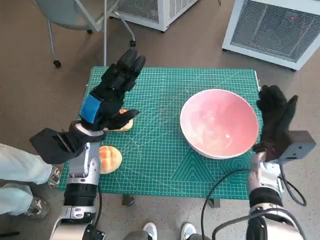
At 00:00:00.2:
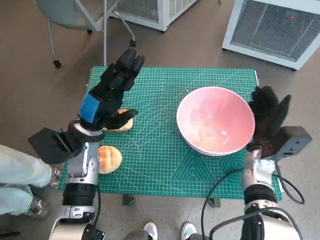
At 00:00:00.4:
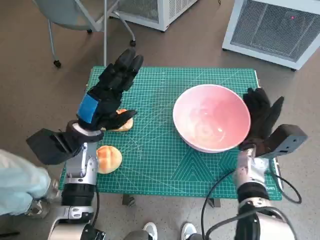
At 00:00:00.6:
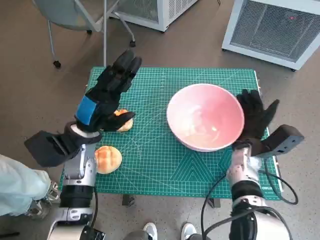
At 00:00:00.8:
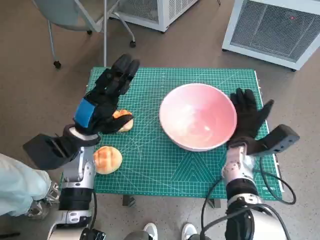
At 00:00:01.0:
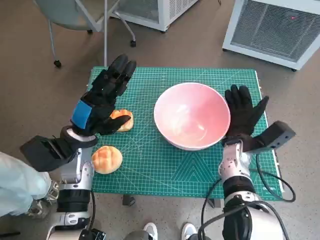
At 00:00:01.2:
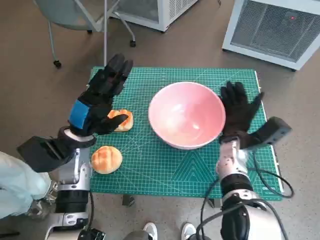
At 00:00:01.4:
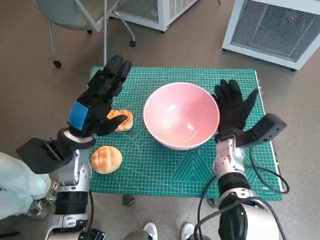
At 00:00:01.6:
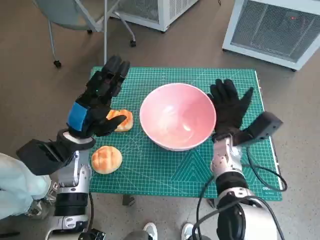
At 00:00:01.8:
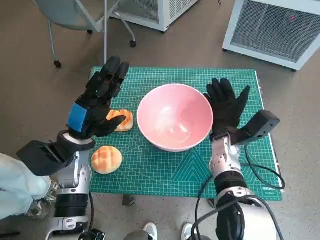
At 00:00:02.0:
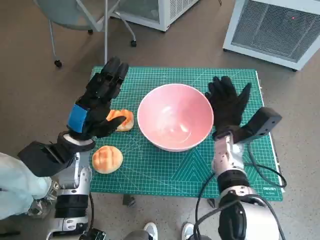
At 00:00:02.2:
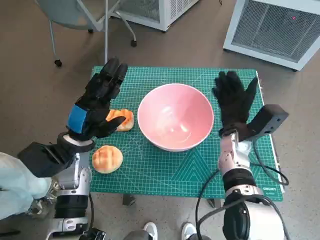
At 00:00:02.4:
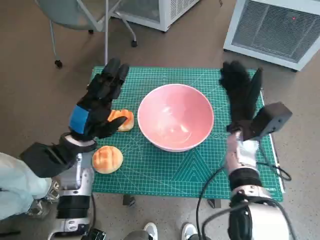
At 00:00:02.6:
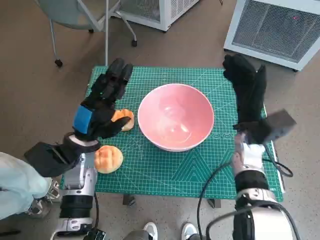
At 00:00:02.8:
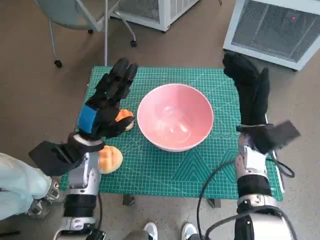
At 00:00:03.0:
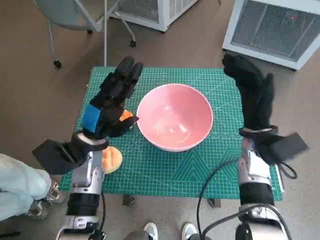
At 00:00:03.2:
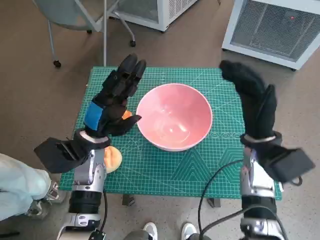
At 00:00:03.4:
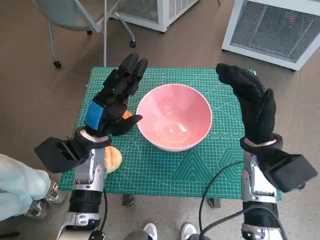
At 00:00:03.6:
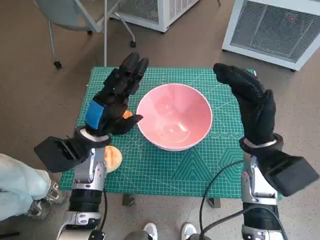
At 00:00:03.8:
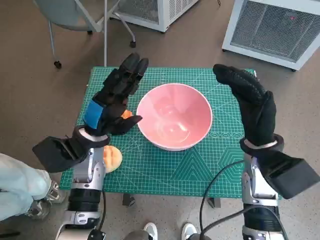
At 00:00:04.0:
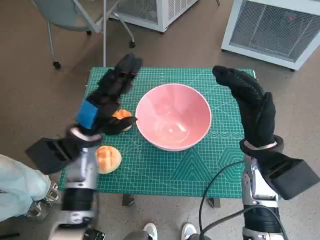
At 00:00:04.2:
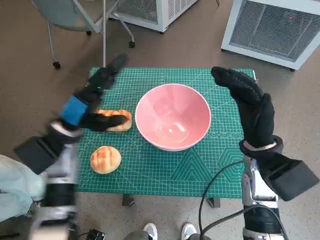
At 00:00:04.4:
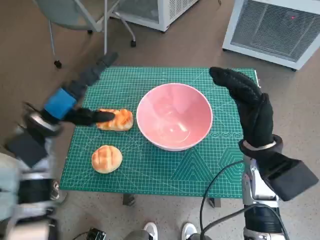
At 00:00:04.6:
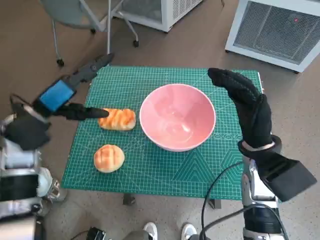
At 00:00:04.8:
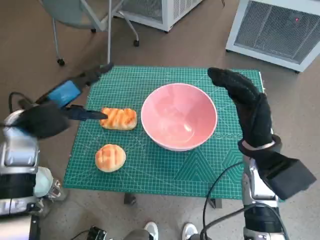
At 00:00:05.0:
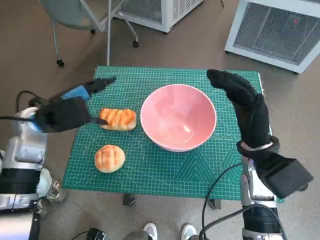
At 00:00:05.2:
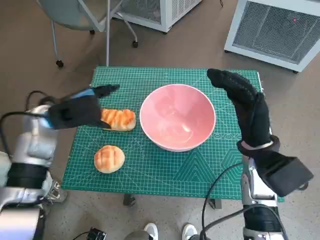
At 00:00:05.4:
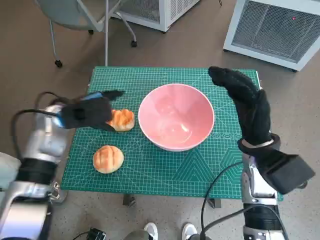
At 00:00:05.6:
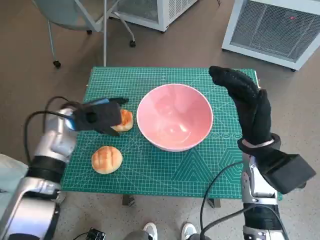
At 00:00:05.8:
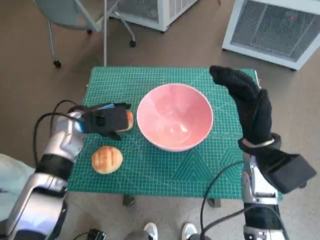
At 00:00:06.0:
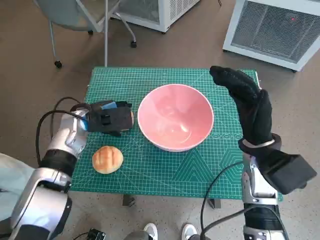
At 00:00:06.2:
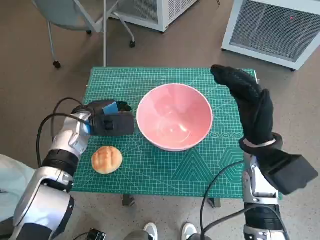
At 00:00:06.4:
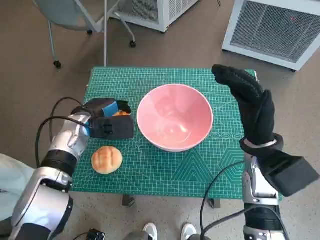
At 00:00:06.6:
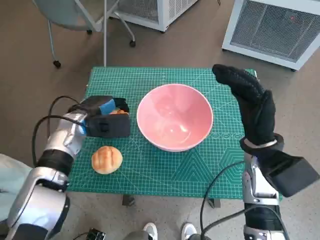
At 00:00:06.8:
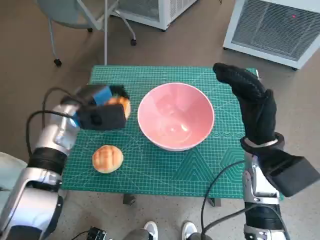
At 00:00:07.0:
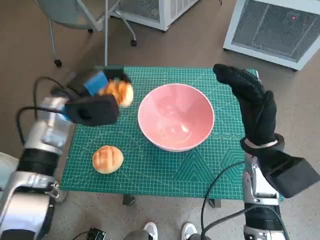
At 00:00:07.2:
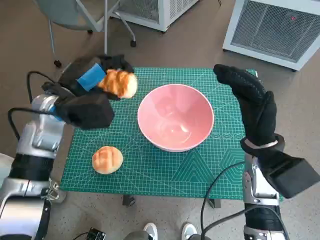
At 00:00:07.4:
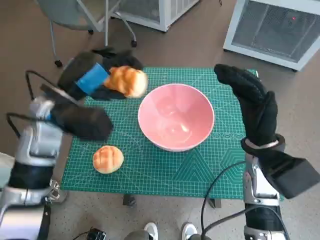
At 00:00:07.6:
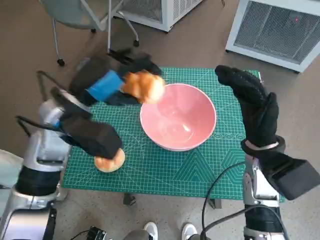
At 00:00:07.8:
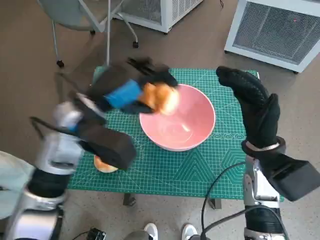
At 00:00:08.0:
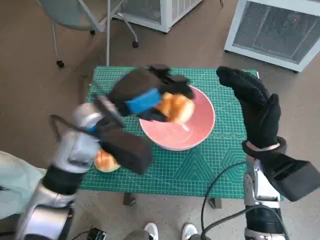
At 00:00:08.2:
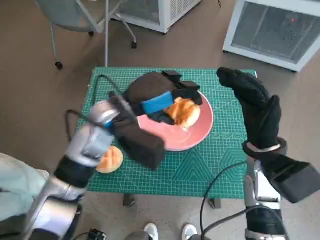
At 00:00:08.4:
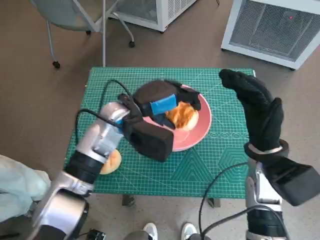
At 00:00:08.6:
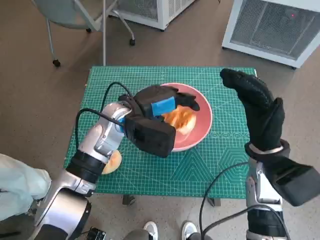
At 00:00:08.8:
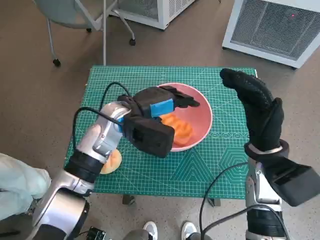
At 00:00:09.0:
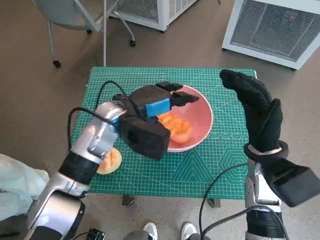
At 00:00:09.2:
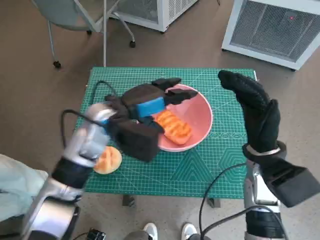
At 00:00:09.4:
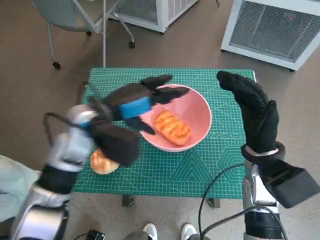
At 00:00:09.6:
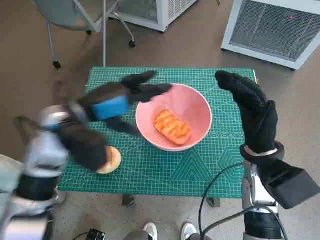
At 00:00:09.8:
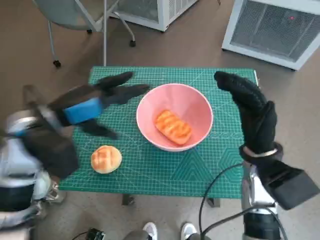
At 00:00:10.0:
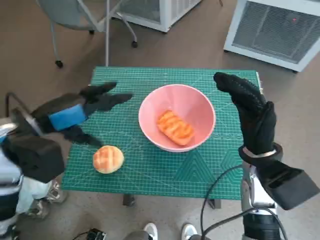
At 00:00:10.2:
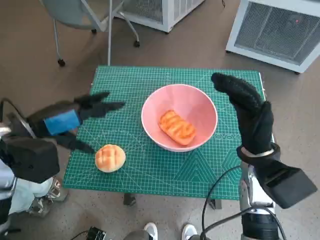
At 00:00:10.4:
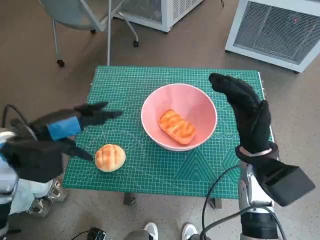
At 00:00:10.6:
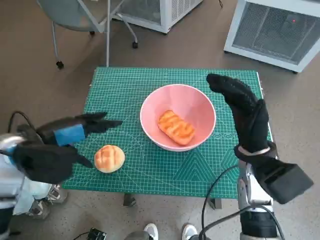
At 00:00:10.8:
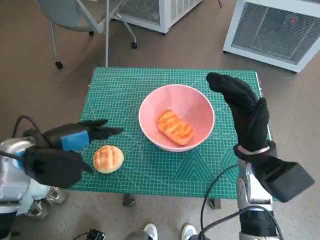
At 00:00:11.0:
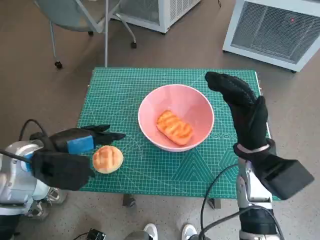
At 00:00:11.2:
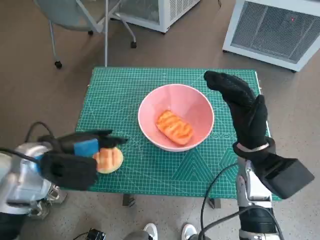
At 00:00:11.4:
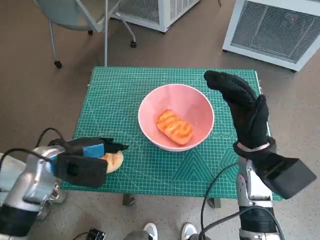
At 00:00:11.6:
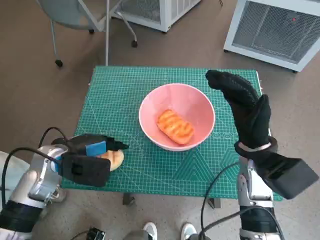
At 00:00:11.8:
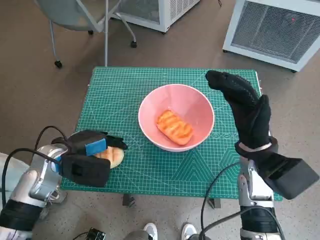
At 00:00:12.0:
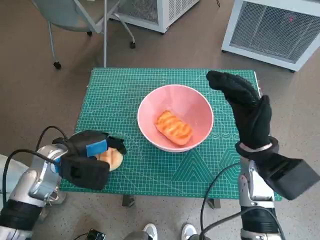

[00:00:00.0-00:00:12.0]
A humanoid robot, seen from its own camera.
Task of the whole recording: Push the bowl into the center of the table and put the bread into the bowl.
Step, 00:00:00.0 to 00:00:02.0: Move the pink bowl to the center of table with right hand.
Step, 00:00:02.2 to 00:00:06.2: Grasp the long bread with left hand.
Step, 00:00:06.4 to 00:00:09.2: Place the long bread in pink bowl with left hand.
Step, 00:00:09.4 to 00:00:11.8: Grasp the round bread with left hand.
00:00:00.0 to 00:00:01.6: The right hand shifts approximately 10 cm to the left.
00:00:01.6 to 00:00:03.0: The right hand moves upward, some 5 cm.
00:00:03.0 to 00:00:04.4: The left hand moves to the left and upward, approximately 10 cm.
00:00:04.4 to 00:00:06.0: The left hand moves forward, roughly 5 cm.
00:00:06.0 to 00:00:07.6: The left hand heads upward and backward, covering approximately 10 cm.
00:00:07.6 to 00:00:09.0: The left hand shifts about 10 cm to the right and downward.
00:00:09.0 to 00:00:10.4: The left hand heads to the left and backward, covering roughly 15 cm.
00:00:10.4 to 00:00:12.0: The left hand moves downward, approximately 10 cm.

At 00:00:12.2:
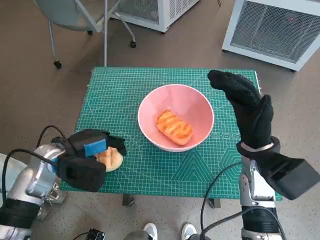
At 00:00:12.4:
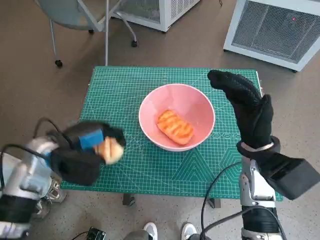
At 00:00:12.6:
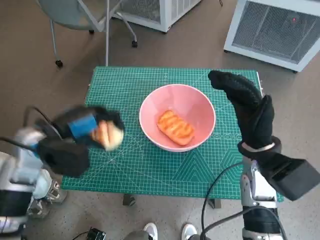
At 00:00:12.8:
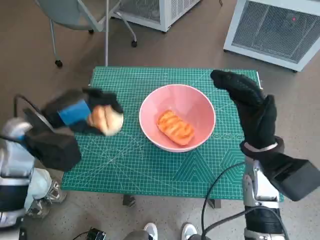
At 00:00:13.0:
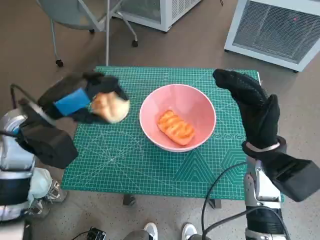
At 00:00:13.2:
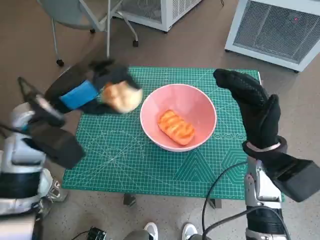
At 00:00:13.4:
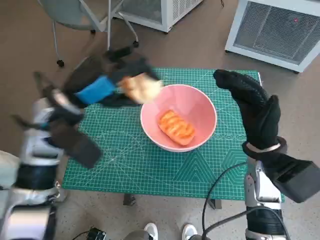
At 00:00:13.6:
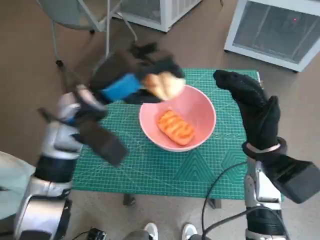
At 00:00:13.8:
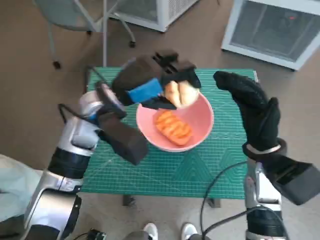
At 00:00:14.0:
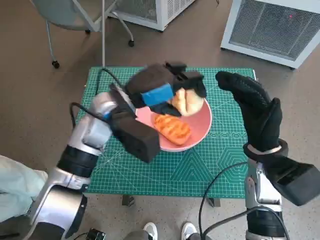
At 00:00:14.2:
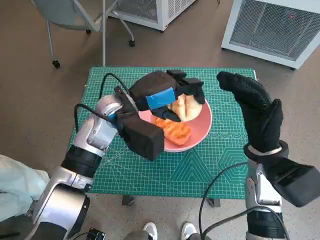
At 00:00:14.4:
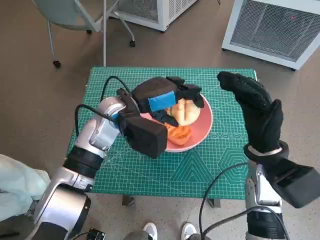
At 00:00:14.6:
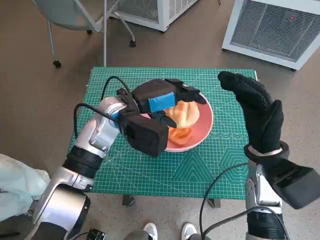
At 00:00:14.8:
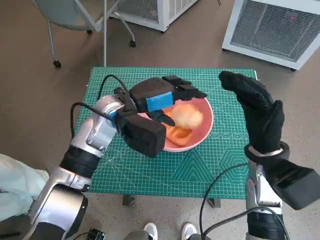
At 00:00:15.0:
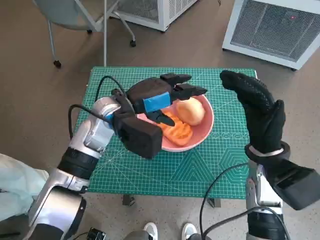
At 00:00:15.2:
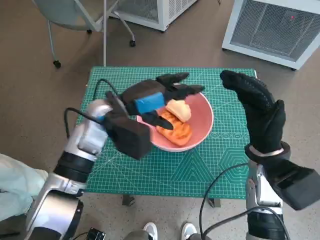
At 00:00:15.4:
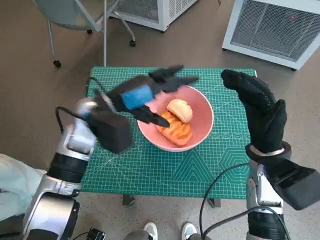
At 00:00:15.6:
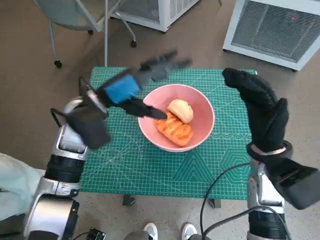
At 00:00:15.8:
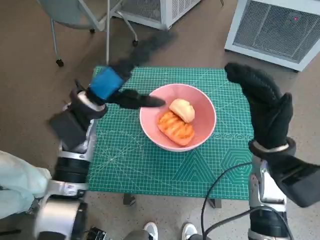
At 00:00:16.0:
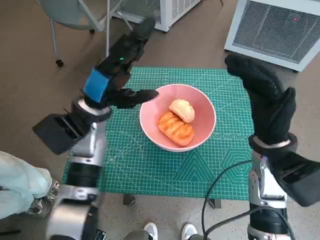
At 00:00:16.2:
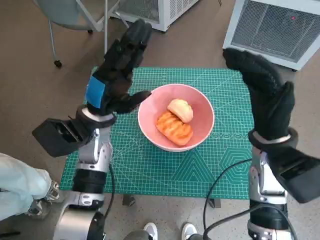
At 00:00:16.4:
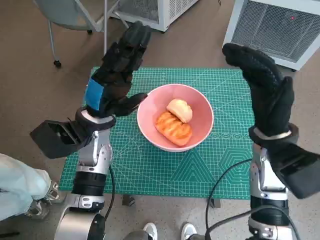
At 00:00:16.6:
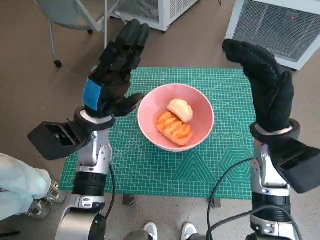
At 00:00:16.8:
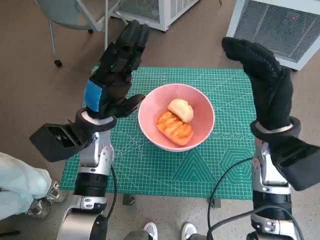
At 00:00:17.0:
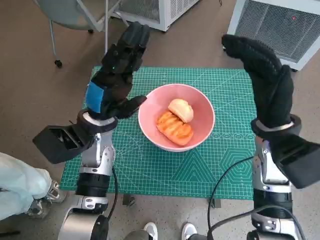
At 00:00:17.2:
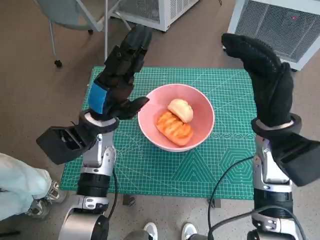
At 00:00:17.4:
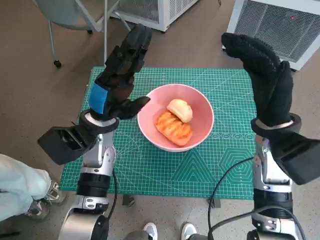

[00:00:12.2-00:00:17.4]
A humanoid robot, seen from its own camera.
Task of the whole recording: Push the bowl into the center of the table and put the bread into the bowl.
Step, 00:00:12.2 to 00:00:15.0: Place the round bread in pink bowl with left hand.
00:00:12.2 to 00:00:14.0: The left hand is displaced to the right, upward and forward by roughly 15 cm.
00:00:15.6 to 00:00:17.4: The right hand ends up about 5 cm from where it was; the left hand ends up about 5 cm from where it was.
